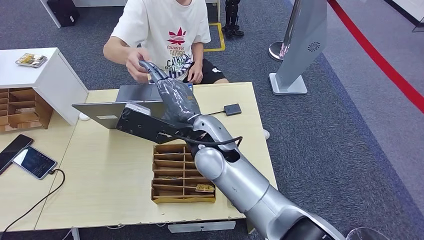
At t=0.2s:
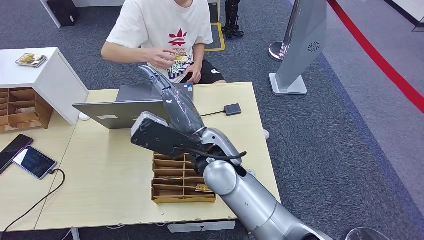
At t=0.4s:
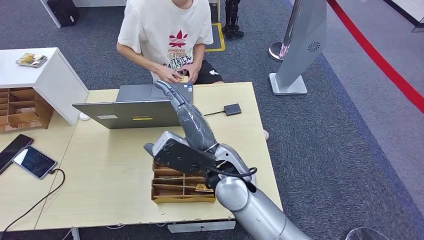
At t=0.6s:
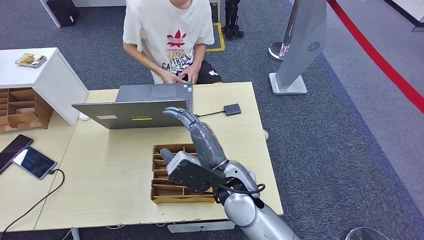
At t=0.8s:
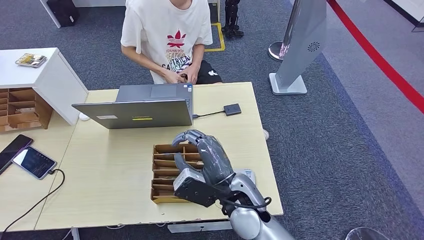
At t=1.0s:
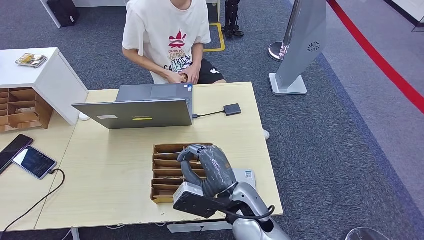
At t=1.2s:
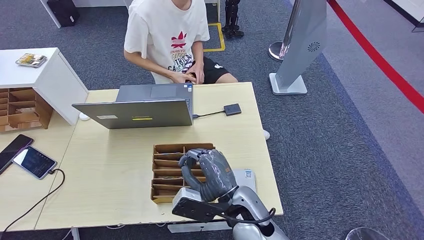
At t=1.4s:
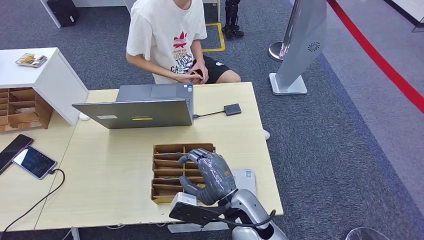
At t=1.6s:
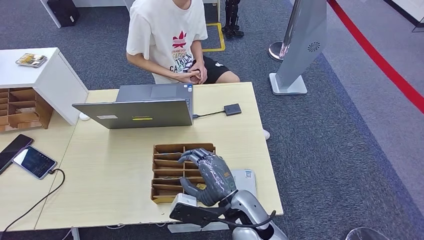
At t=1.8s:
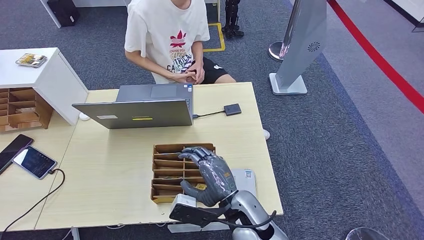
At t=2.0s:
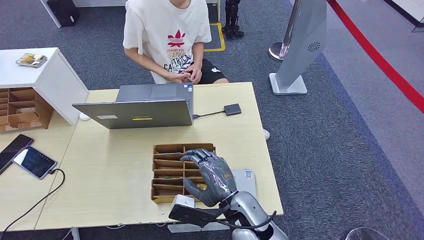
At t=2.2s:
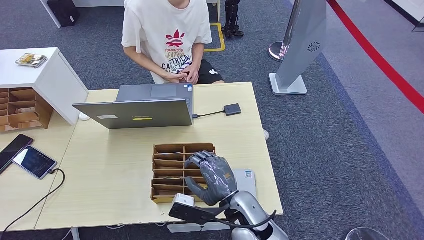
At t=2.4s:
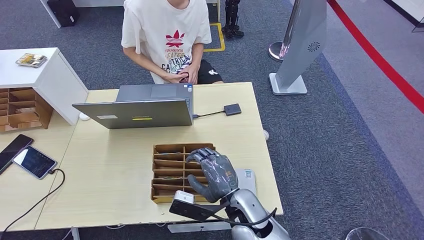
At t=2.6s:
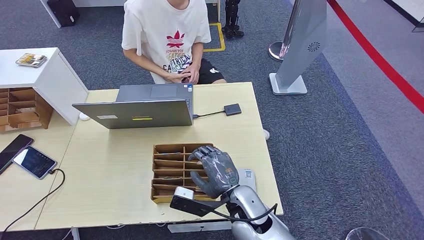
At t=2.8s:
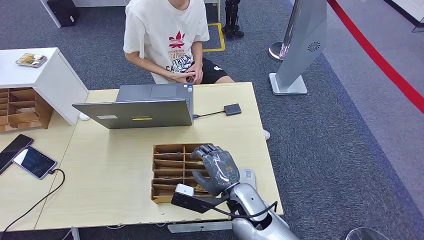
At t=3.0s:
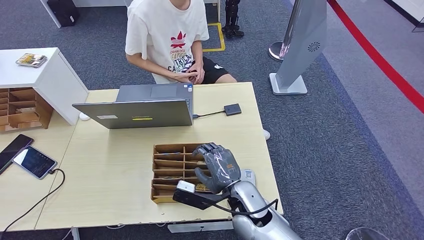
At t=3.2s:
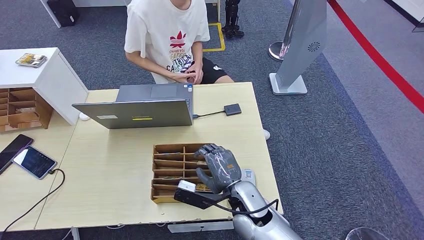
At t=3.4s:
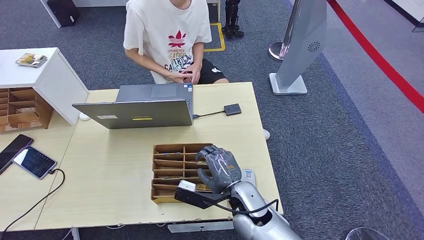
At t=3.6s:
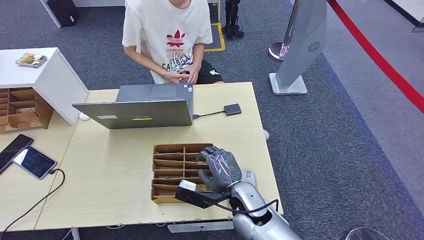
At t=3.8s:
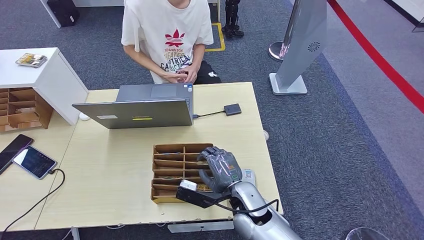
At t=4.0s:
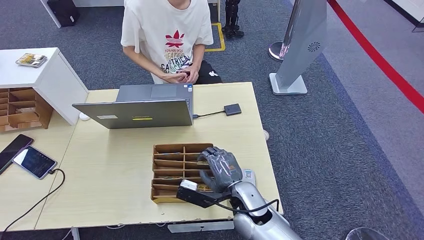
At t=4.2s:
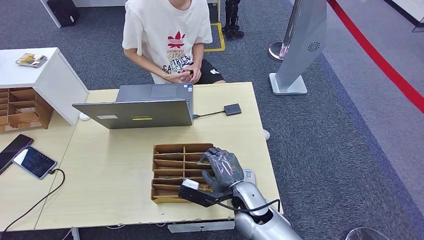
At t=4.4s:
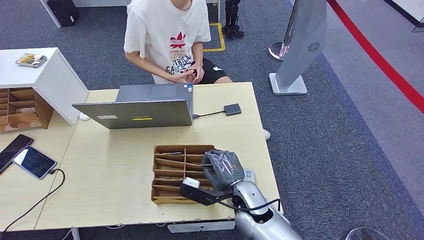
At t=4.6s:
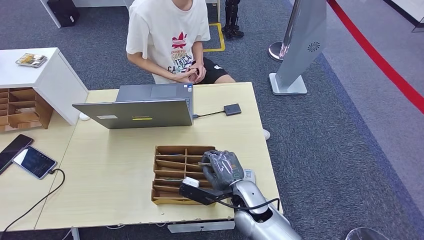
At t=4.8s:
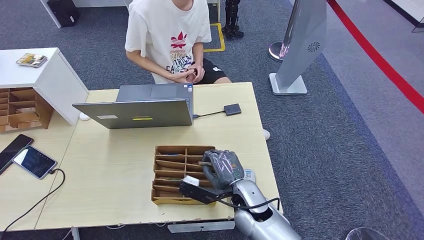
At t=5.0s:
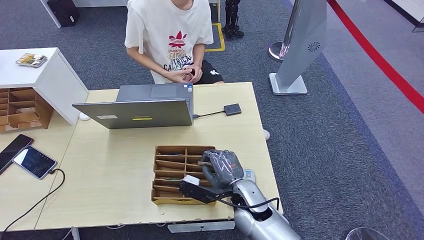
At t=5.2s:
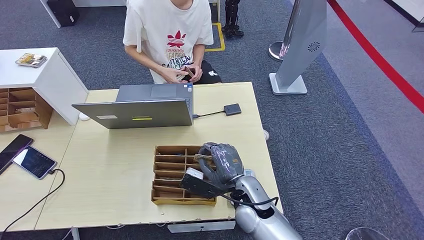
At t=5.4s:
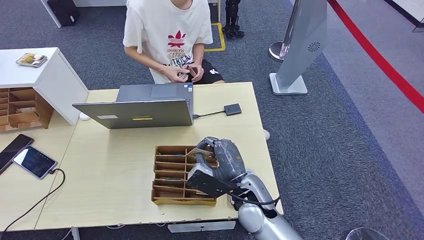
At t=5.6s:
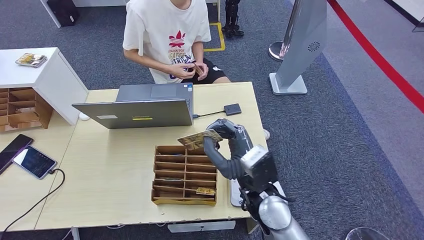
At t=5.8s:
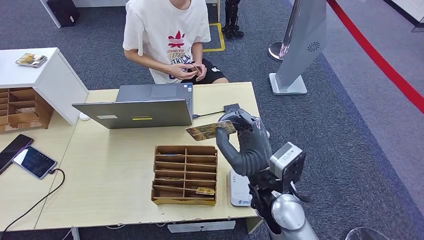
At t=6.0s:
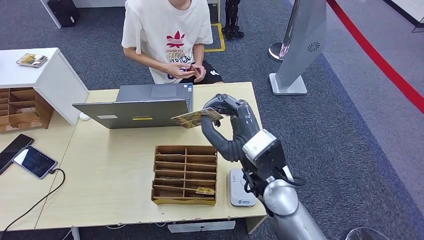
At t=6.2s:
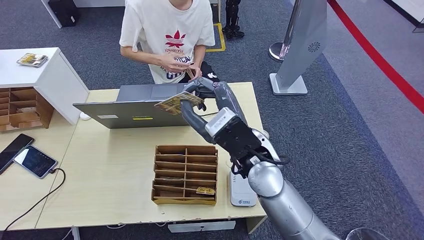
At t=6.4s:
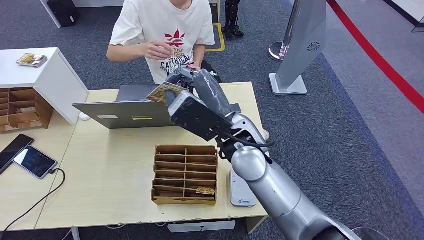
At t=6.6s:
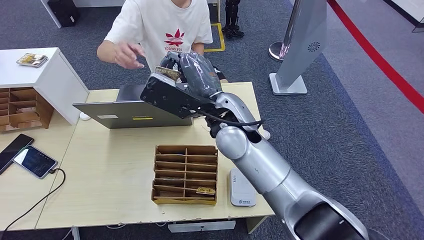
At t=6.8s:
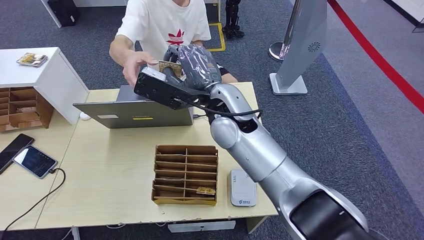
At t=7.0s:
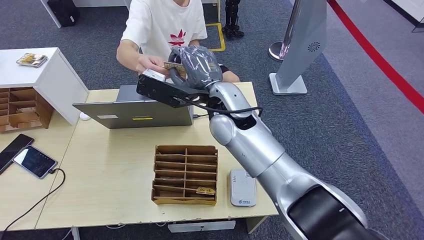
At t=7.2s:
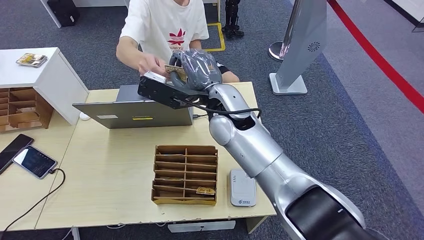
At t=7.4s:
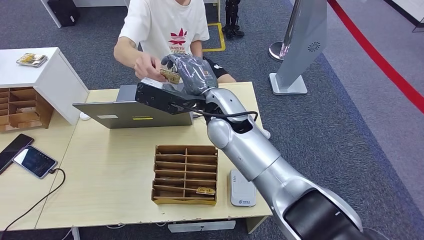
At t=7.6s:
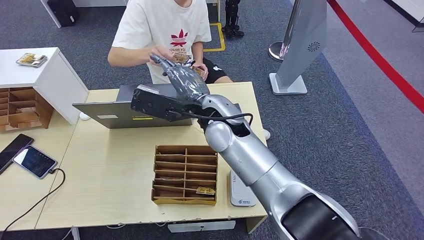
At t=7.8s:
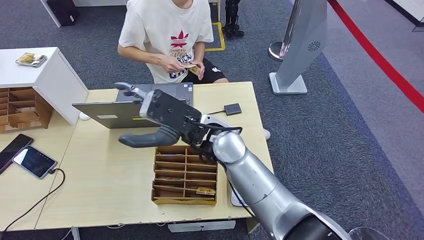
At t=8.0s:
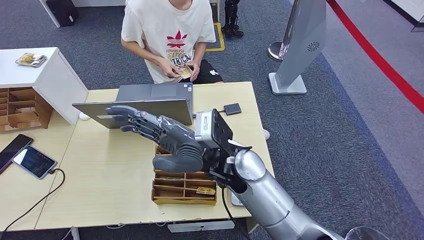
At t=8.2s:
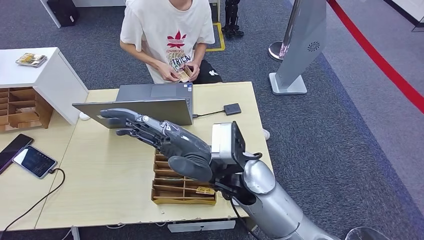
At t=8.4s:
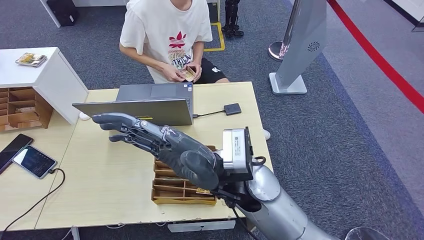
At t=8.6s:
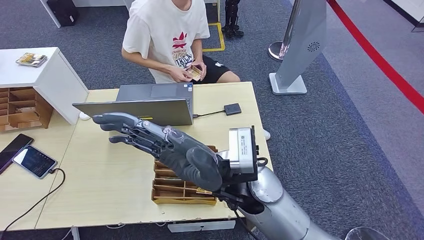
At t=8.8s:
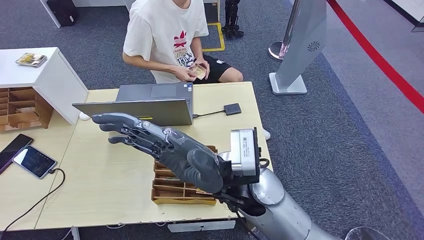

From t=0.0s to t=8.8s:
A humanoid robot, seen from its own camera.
Step, from t=0.2s to t=5.2s: Pick up the room key from the key card box.
Step, from t=5.4s to t=8.8s: Hand the room key to the person.
From t=0.0s to t=1.4s: The right hand travels downward, backward and to the right by some 20 cm.
From t=1.4s to t=3.0s: There are only small adjustments of the hands.
From t=3.0s to t=4.4s: There are only small adjustments of the hands.
From t=4.4s to t=5.8s: The right hand goes about 15 cm upward.
From t=5.8s to t=7.4s: The right hand travels forward, upward and to the left by roughly 20 cm.
From t=7.4s to t=8.8s: The right hand moves backward, roughly 15 cm.

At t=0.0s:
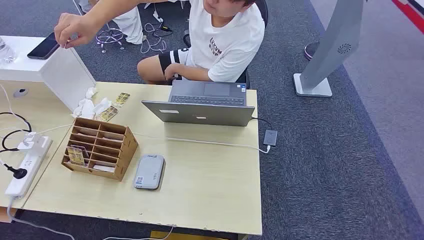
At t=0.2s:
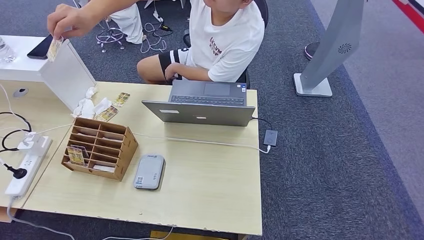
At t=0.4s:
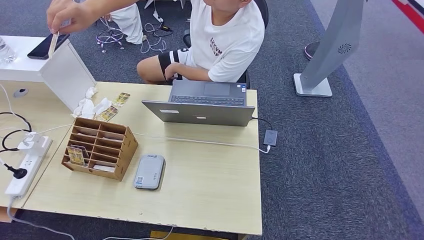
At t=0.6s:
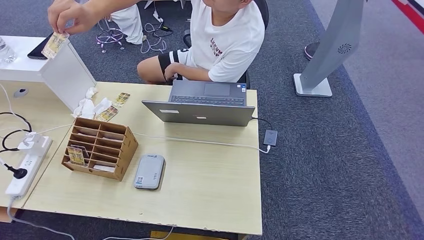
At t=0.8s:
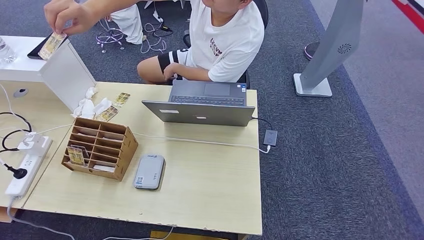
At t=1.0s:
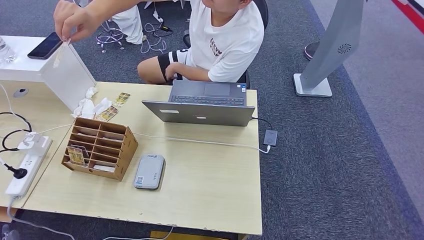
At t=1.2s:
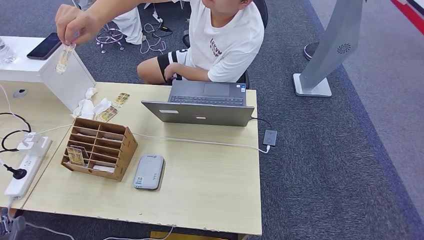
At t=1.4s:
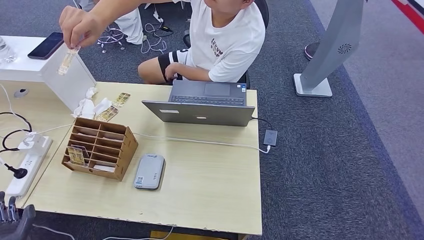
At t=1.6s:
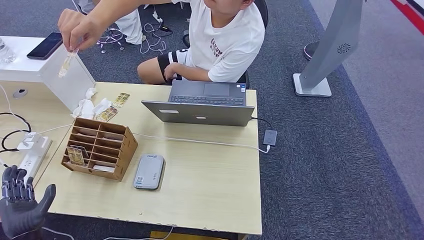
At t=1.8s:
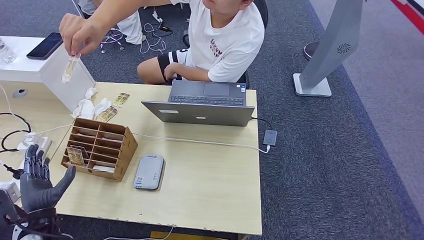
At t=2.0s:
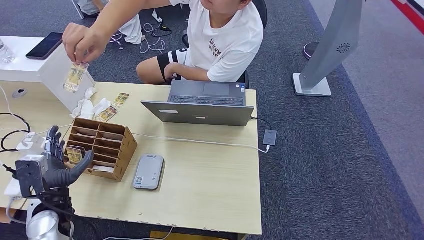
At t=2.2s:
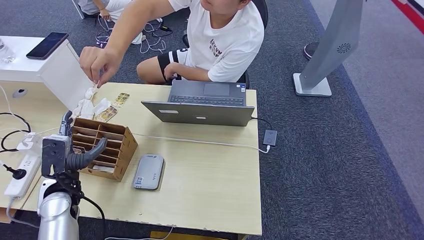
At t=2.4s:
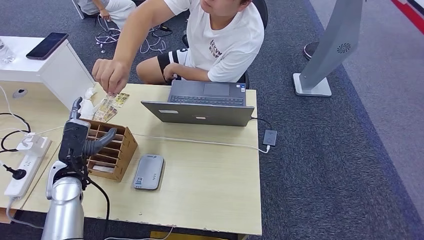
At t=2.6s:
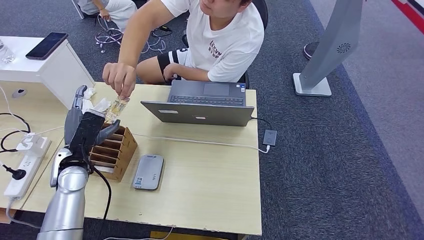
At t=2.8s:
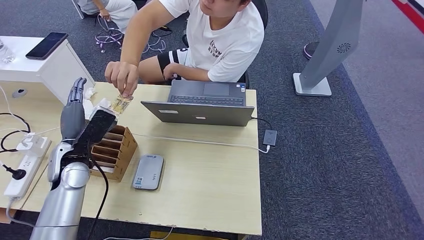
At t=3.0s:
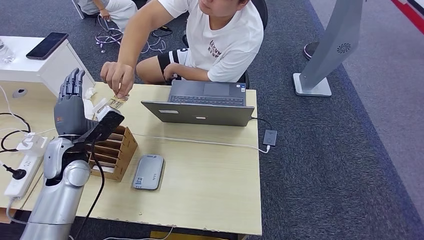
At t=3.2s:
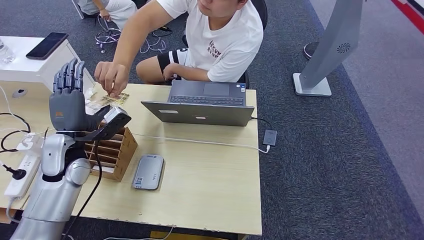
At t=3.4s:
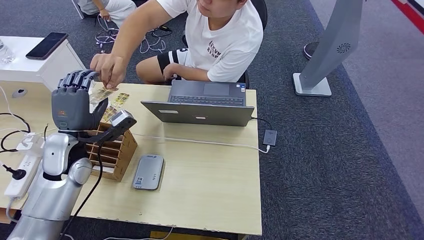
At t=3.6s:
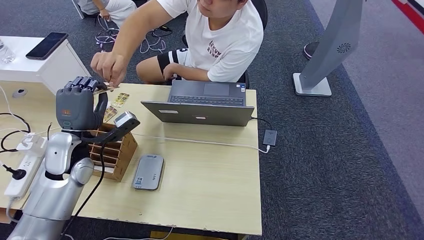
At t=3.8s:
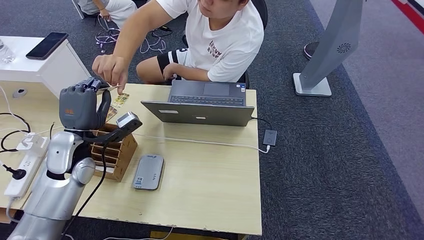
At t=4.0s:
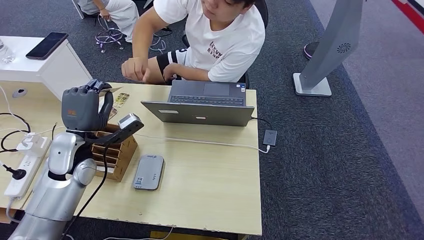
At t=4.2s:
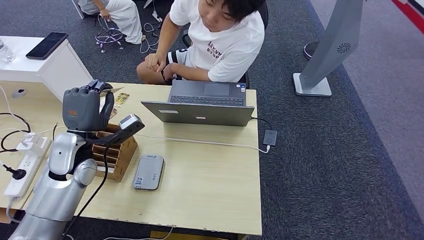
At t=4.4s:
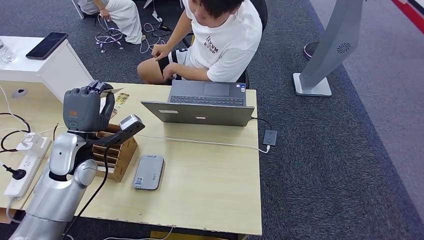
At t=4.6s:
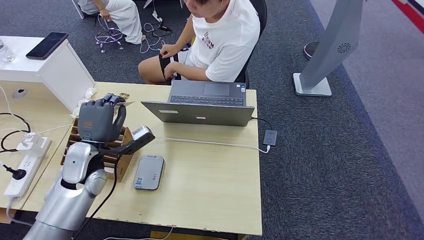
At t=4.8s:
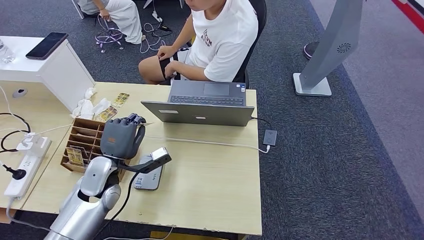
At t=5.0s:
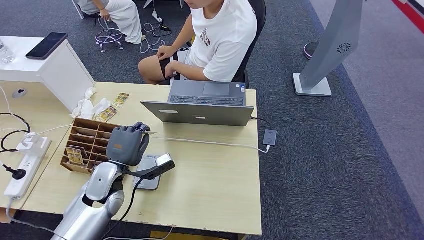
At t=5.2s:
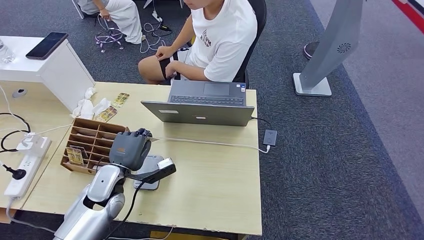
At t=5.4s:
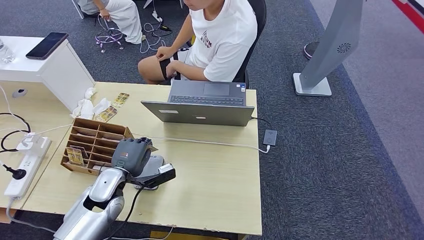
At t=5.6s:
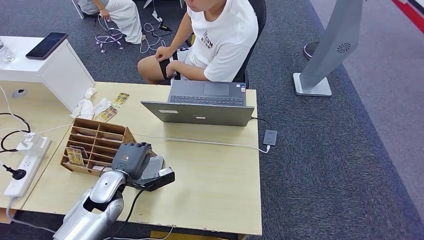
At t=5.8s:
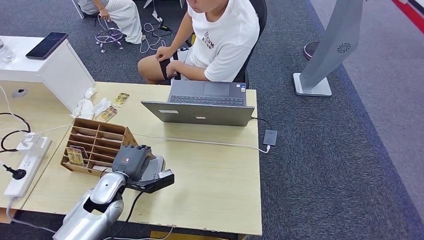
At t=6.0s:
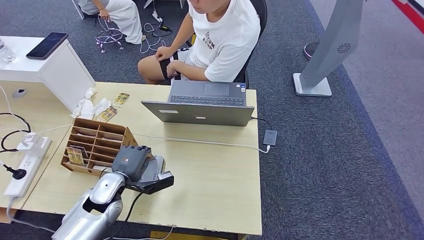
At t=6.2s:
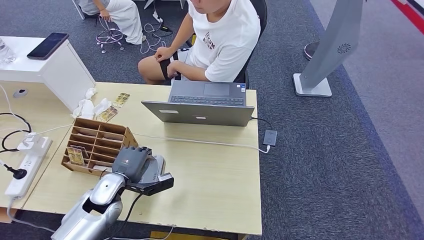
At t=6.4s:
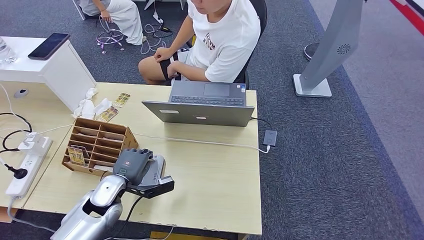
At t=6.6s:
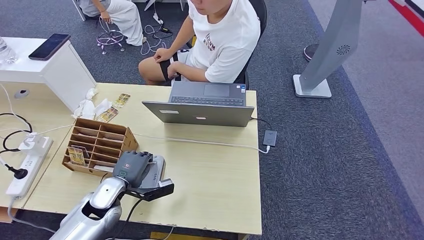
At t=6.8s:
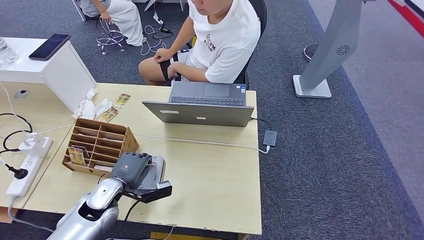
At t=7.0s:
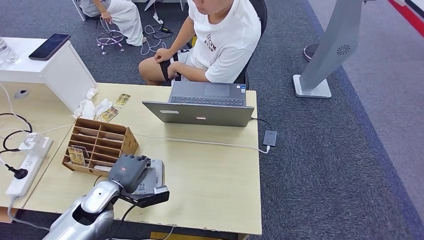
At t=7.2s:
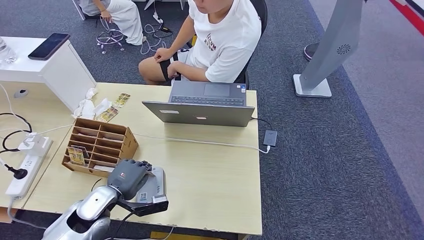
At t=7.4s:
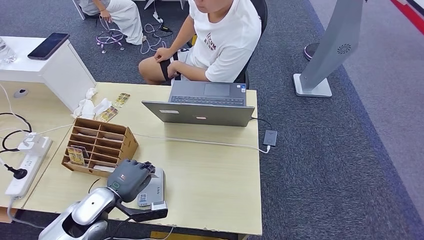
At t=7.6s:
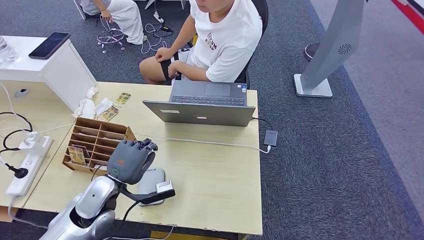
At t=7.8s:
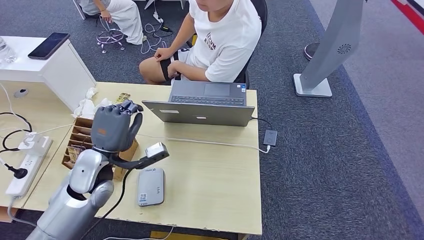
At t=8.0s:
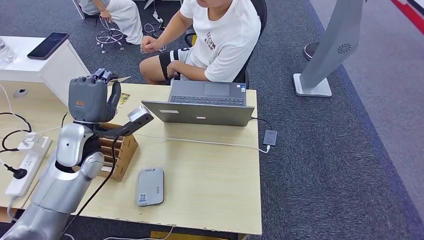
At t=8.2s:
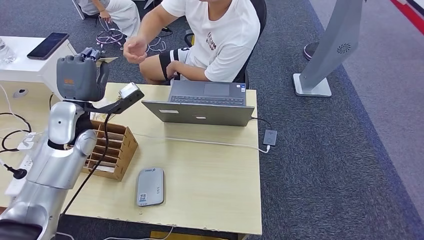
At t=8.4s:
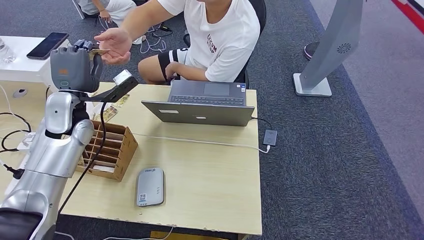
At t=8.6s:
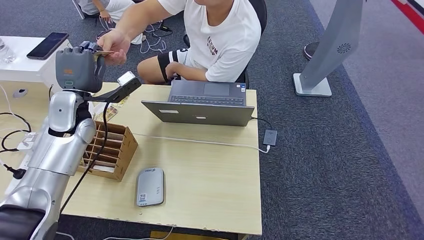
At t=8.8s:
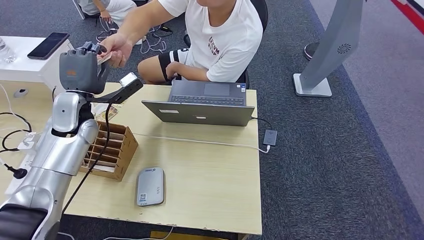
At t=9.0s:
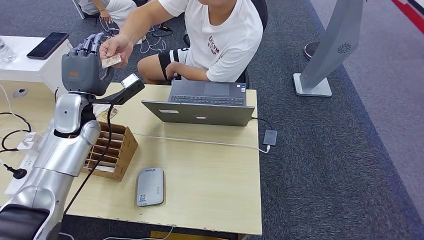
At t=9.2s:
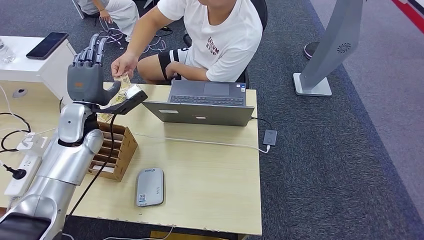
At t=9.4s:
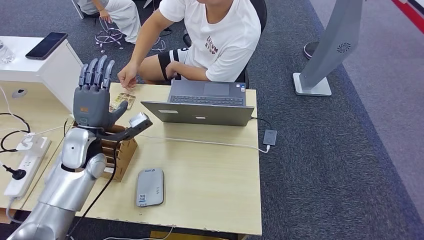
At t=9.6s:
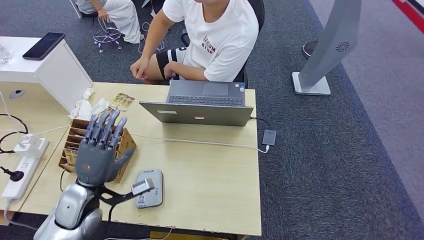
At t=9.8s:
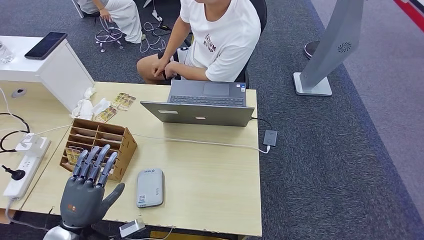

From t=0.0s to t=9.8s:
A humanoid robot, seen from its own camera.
Step, from t=0.0s to t=2.2s: Take the ID card from the person's hand.
Step, from t=2.6s to t=6.8s: Place the ID card on the card reader.
Step, from t=7.0s to t=8.6s: Hand the ID card to the person.
From t=1.4s to t=2.8s: The left hand moves forward and upward, approximately 30 cm.
From t=4.2s to t=5.6s: The left hand goes some 15 cm downward, backward and to the right.
From t=5.6s to t=7.0s: The hands make only small movements.
